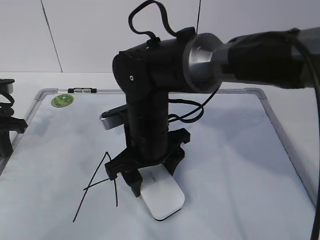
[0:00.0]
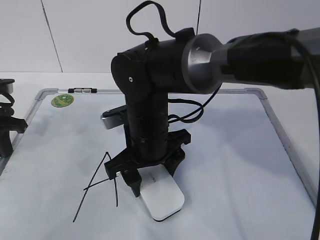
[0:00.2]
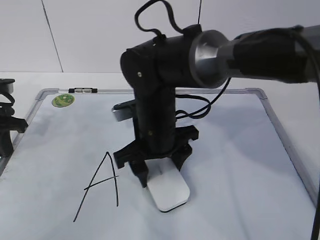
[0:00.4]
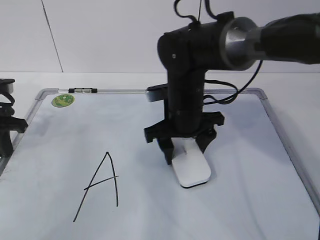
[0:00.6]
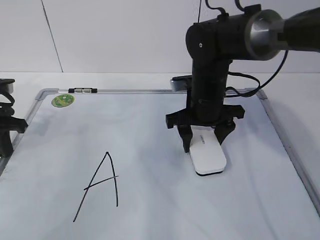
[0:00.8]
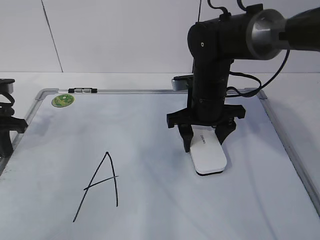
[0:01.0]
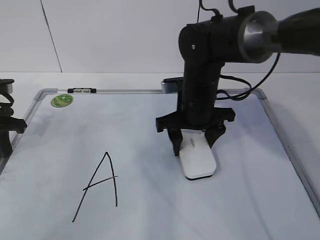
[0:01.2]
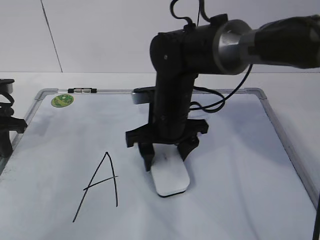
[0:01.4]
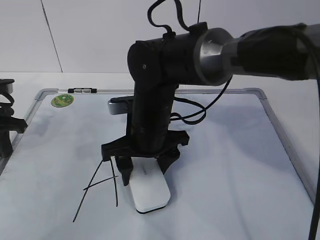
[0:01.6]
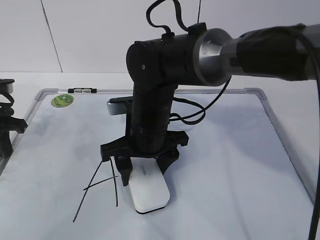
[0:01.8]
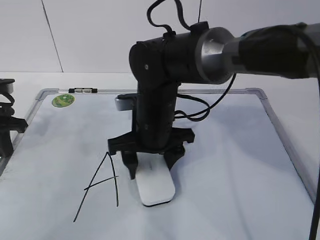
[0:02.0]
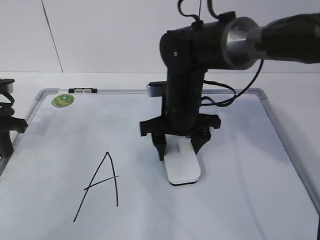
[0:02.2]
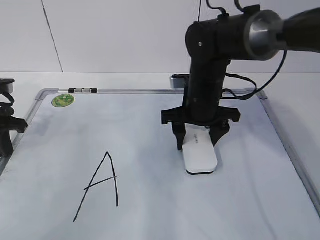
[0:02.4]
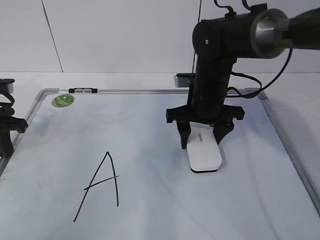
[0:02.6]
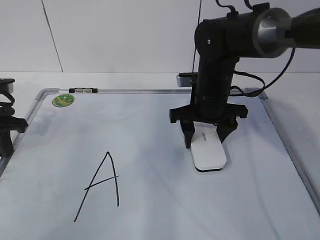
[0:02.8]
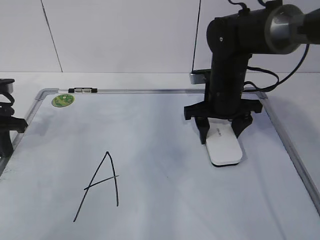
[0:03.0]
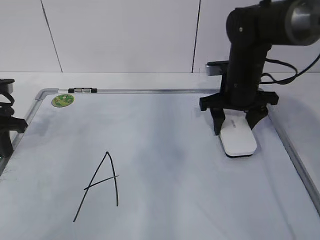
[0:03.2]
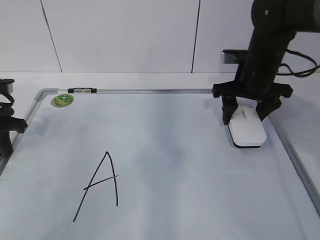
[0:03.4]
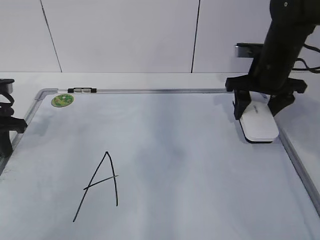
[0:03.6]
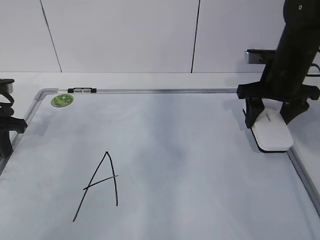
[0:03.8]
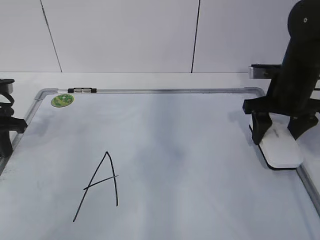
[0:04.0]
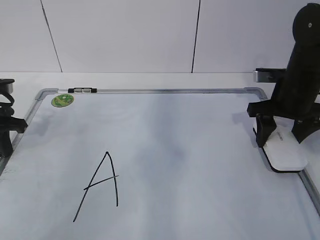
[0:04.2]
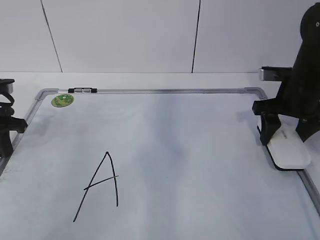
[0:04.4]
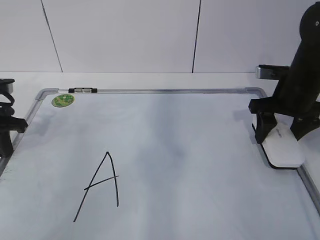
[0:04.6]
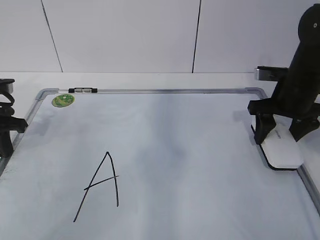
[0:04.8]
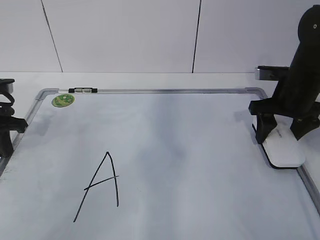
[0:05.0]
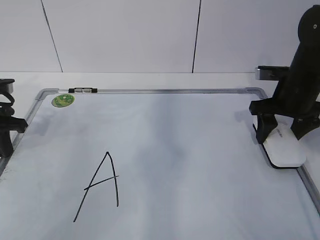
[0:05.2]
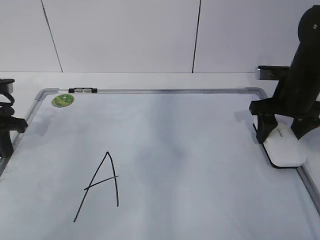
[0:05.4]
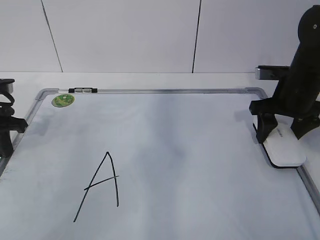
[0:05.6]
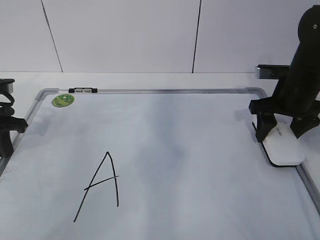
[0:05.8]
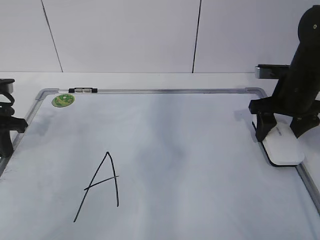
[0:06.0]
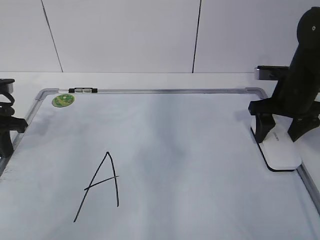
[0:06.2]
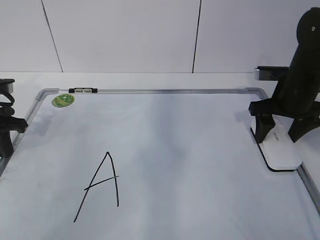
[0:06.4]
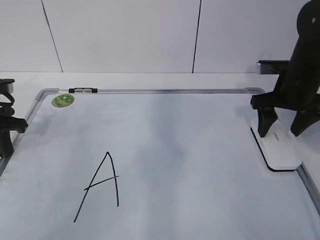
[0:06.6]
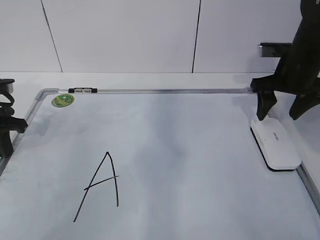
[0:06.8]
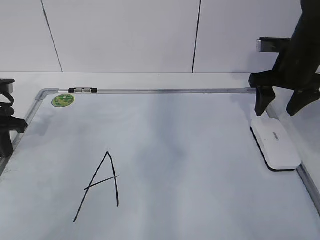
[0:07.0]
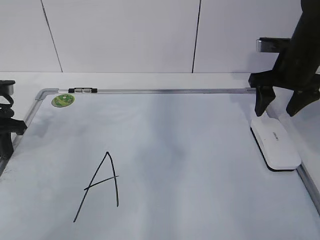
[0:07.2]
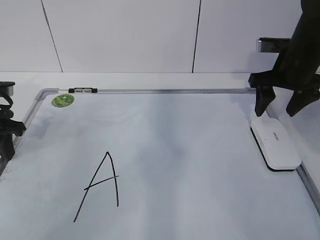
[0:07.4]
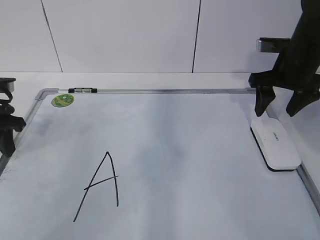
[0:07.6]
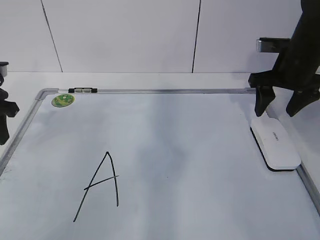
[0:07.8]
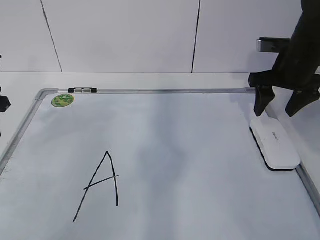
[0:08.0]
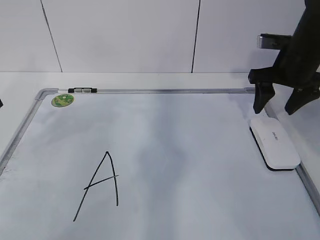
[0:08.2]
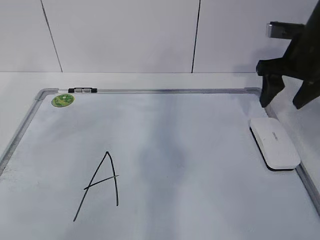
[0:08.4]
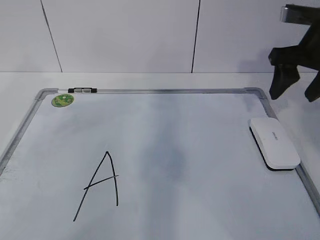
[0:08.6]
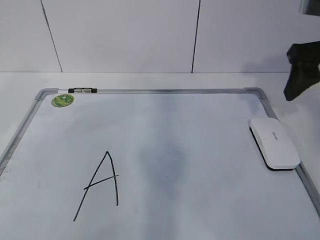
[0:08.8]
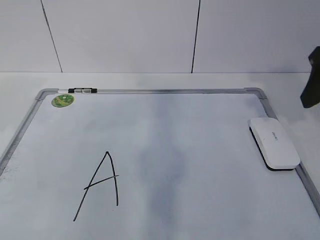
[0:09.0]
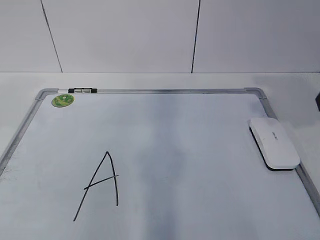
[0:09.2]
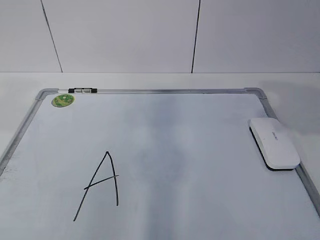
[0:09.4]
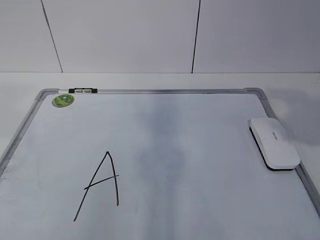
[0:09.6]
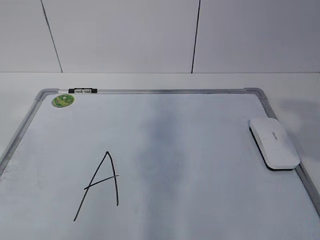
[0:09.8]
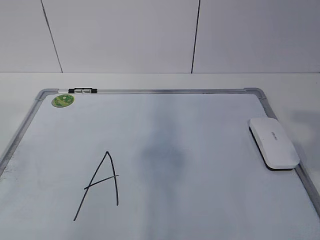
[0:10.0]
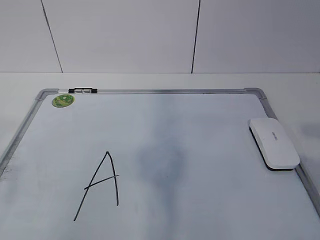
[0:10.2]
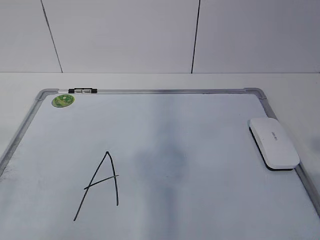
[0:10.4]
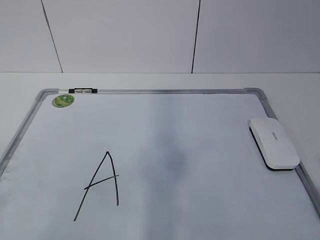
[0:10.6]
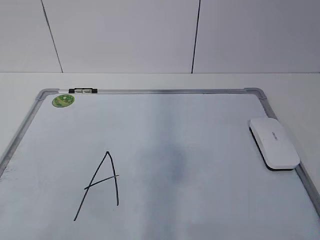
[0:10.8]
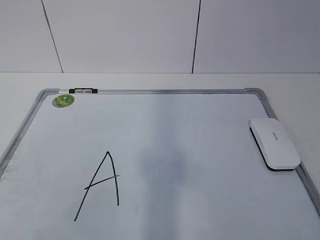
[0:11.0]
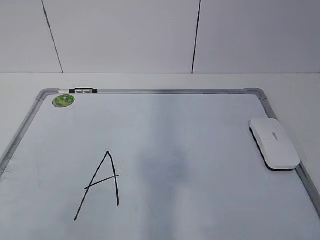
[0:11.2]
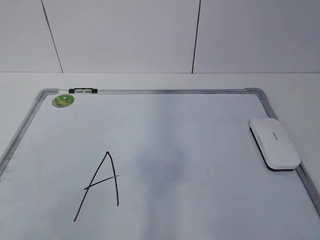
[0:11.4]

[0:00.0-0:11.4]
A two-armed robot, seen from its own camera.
Task of the whole recording: pick up the eraser on the blackboard and erase the letter "a".
Step, 0:00.6 to 0:03.0: Put down the eraser with your right hand.
0:01.4 to 0:02.8: The right gripper is displaced to the right by roughly 5 cm.
0:02.8 to 0:04.2: The right gripper moves to the right, roughly 15 cm.
0:04.2 to 0:05.6: Neither gripper changes place.
0:07.2 to 0:08.6: The left gripper heads upward, covering roughly 10 cm, and opens up. The right gripper heads upward and backward, covering approximately 10 cm.
0:08.6 to 0:10.0: The left gripper goes approximately 30 cm backward and upward. The right gripper travels backward by about 25 cm.
0:10.0 to 0:11.4: The right gripper heads backward and downward, covering about 10 cm.

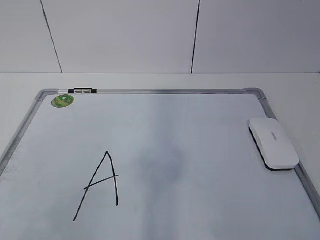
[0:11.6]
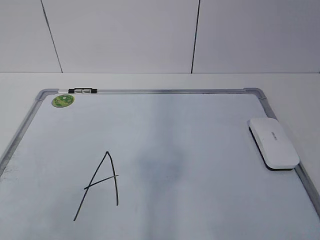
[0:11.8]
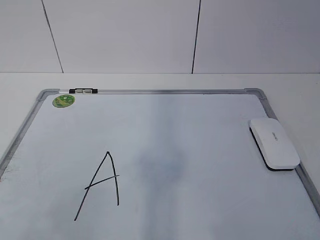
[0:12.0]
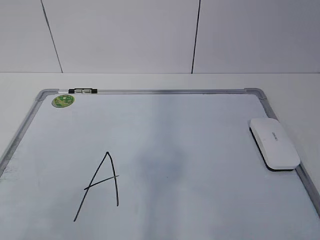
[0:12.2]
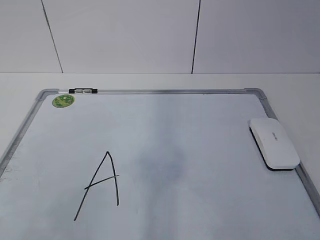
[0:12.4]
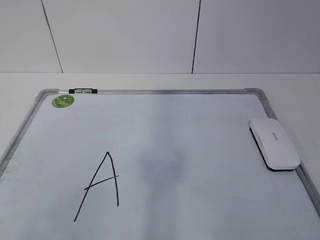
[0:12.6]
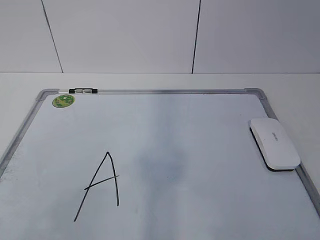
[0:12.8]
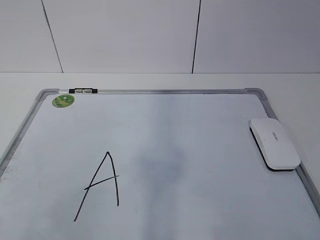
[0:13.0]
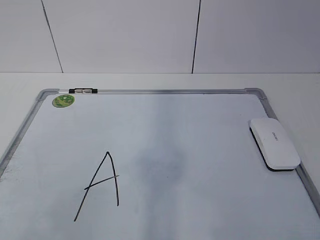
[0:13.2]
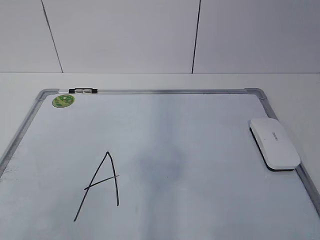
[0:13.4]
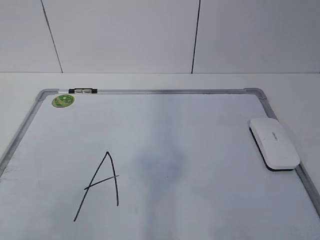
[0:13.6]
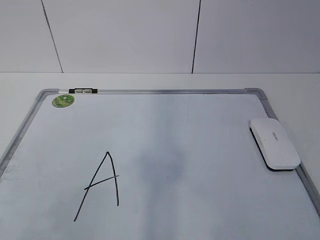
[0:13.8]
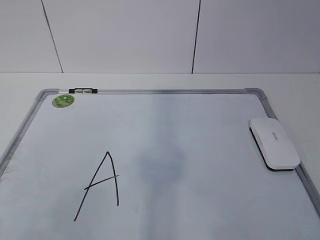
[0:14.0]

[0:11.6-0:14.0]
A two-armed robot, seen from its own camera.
Task of the whole recording: pick up the eraser on the blackboard and erase the letter "a".
0:11.6 to 0:14.0: The two grippers keep their place.

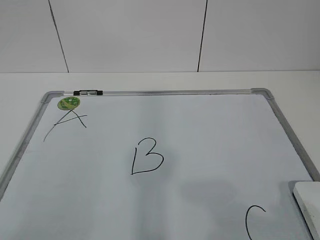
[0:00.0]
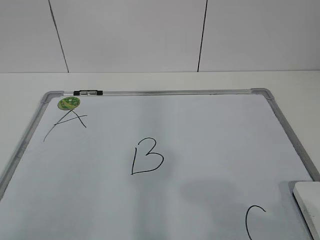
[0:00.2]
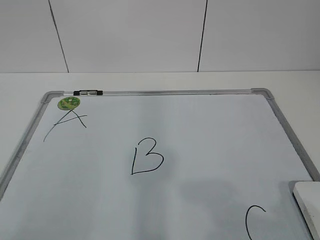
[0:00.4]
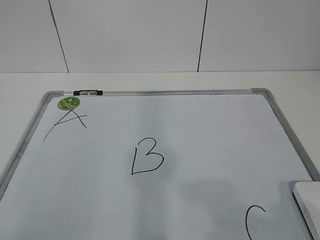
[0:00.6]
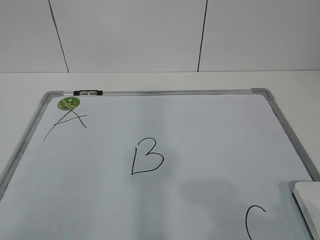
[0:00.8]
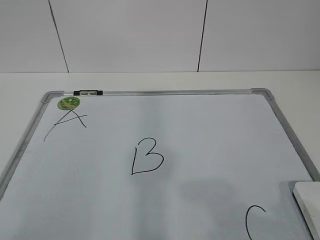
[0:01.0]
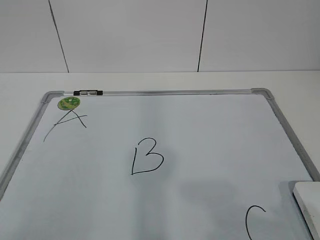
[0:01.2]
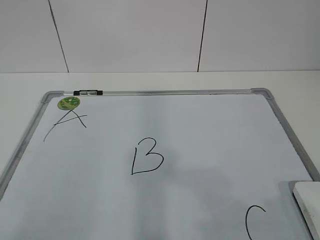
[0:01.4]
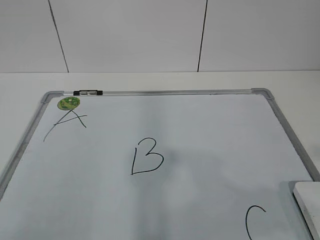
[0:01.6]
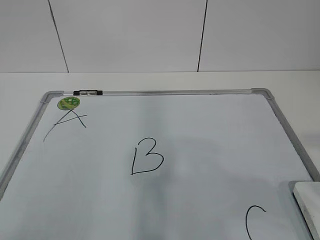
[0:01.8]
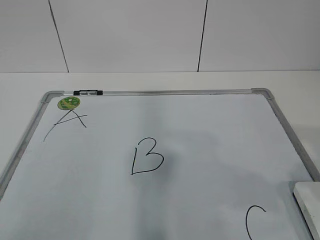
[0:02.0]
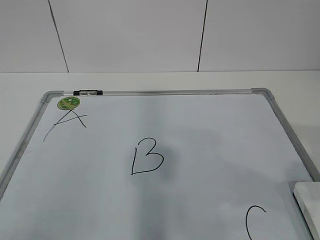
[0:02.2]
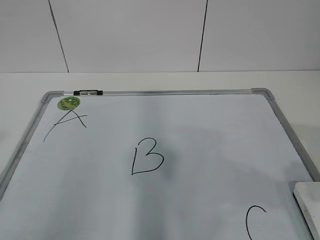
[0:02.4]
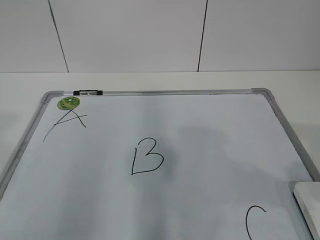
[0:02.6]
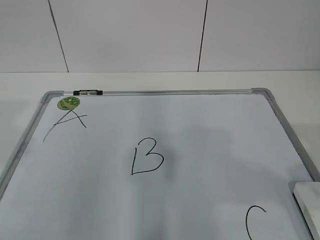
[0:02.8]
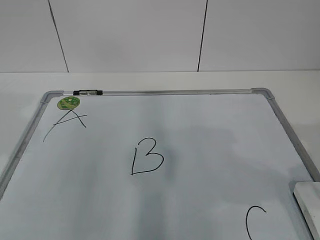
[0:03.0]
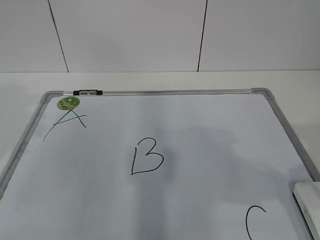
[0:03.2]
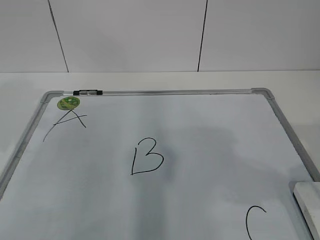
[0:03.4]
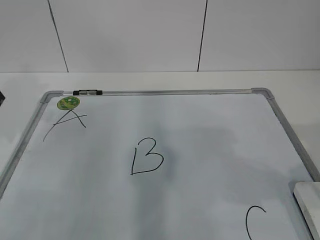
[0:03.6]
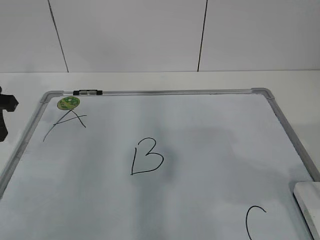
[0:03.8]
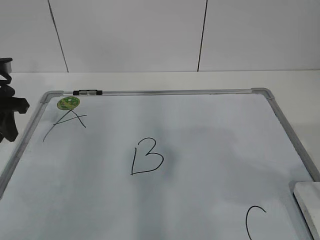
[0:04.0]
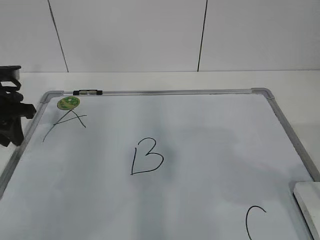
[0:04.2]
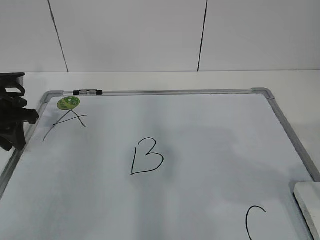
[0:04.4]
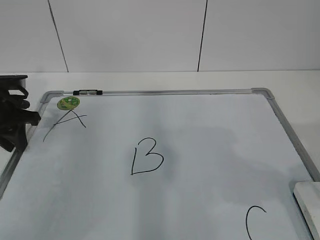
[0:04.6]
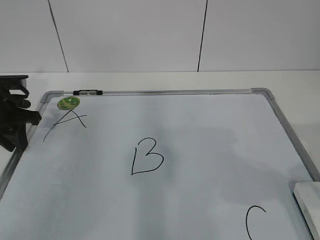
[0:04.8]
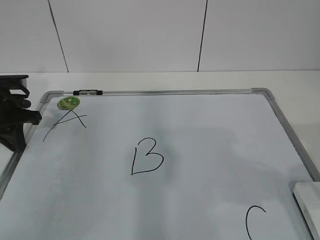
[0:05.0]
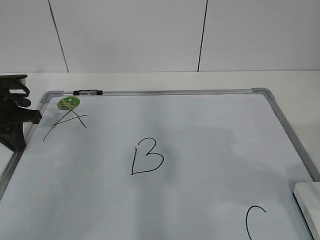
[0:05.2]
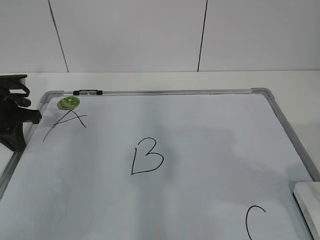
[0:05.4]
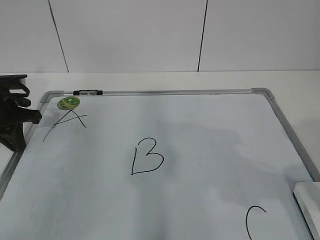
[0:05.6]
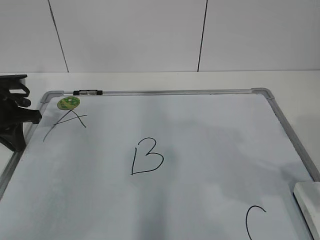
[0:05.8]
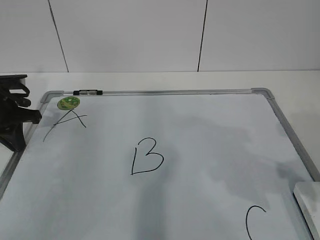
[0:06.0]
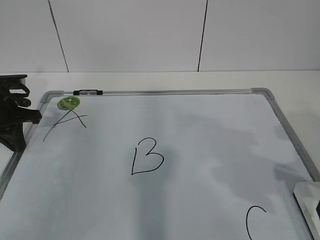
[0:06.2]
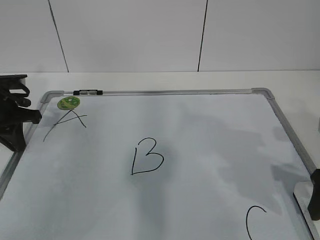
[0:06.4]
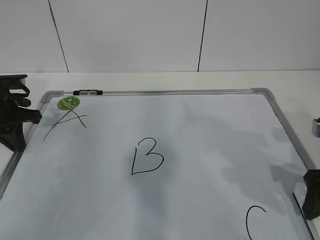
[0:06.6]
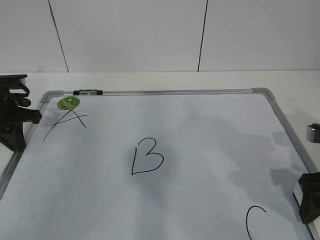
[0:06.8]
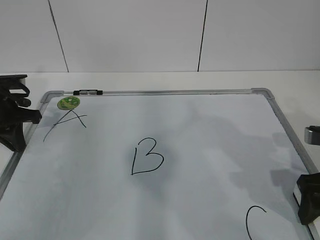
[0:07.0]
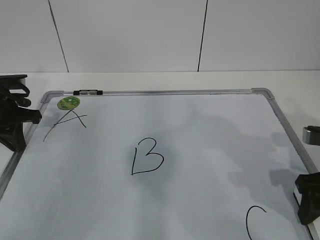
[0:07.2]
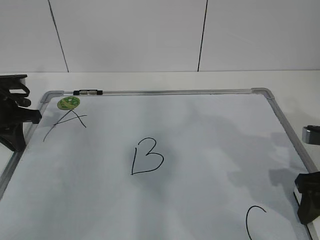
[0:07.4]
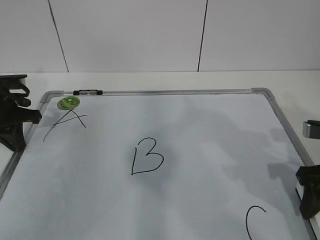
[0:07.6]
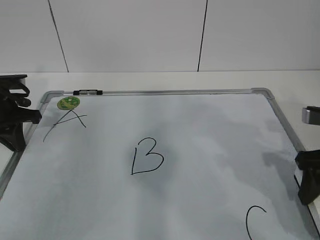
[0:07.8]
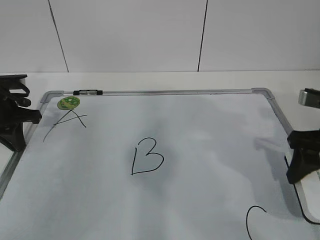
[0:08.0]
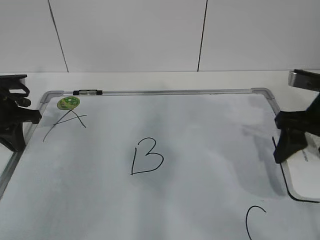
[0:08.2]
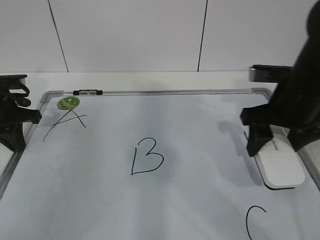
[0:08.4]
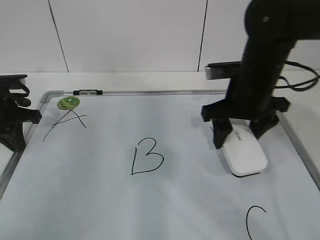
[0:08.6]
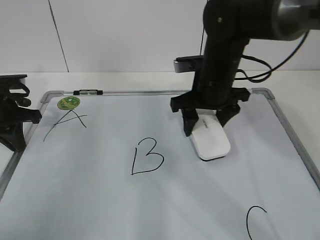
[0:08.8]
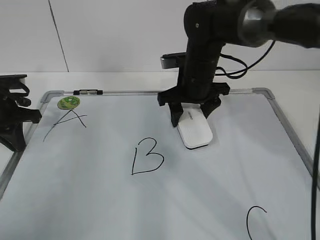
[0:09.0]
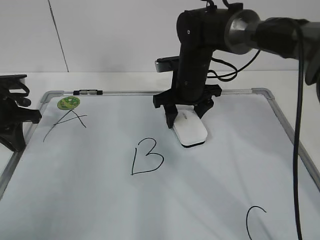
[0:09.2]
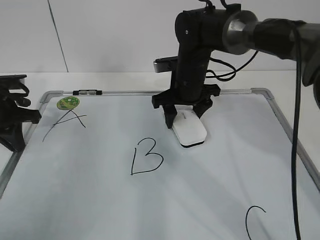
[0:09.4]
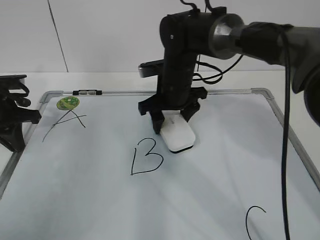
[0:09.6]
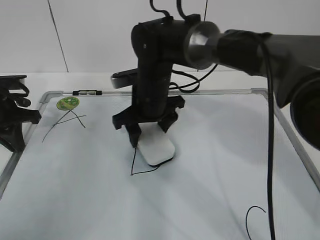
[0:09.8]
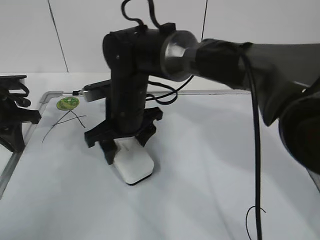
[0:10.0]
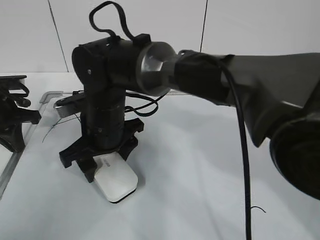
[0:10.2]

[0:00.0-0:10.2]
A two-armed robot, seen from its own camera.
Task of the whole recording: pick up the eraser on the blackboard and erase the letter "B".
Step, 0:00.0 to 0:04.0: Hold the drawing board steady with your left hand.
0:03.0 to 0:04.4: The left gripper is displaced forward and downward by about 25 cm.
0:04.4 to 0:05.8: The left gripper closes up.
0:05.8 to 0:07.2: The right gripper is displaced downward and forward by roughly 10 cm, and closes.
0:07.2 to 0:08.8: The right gripper goes approximately 25 cm to the left and forward.
0:08.8 to 0:10.2: The right gripper goes about 20 cm to the left.
